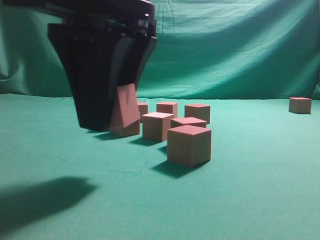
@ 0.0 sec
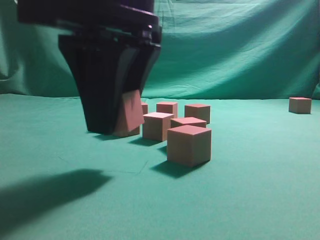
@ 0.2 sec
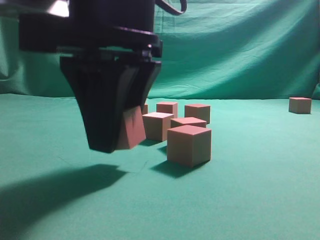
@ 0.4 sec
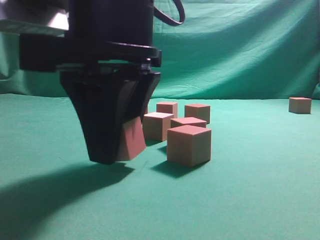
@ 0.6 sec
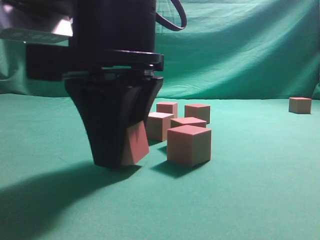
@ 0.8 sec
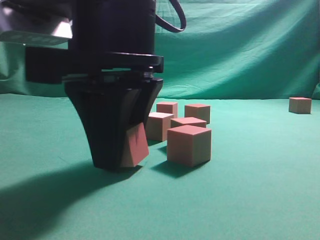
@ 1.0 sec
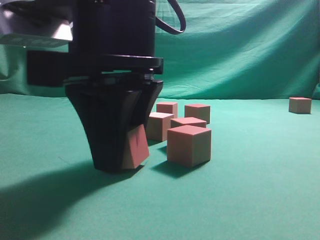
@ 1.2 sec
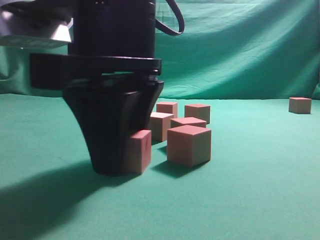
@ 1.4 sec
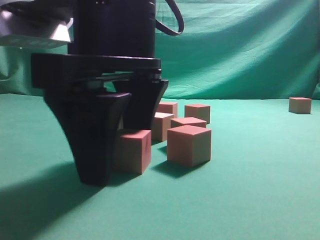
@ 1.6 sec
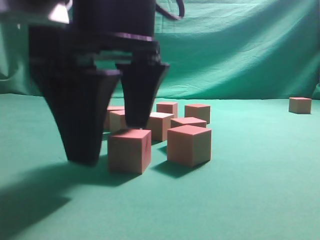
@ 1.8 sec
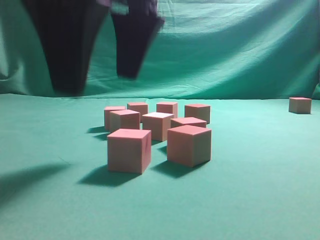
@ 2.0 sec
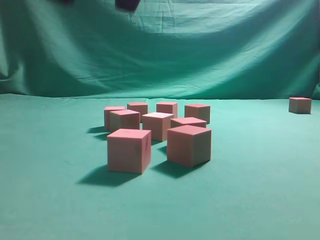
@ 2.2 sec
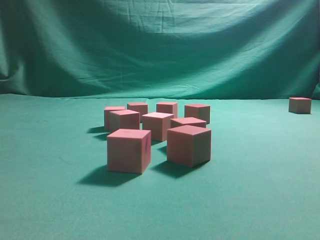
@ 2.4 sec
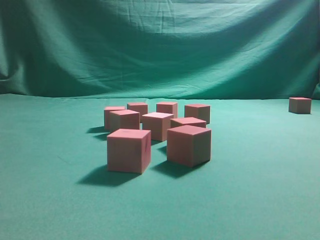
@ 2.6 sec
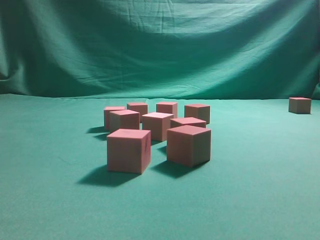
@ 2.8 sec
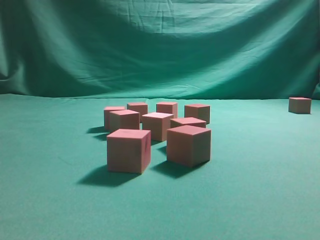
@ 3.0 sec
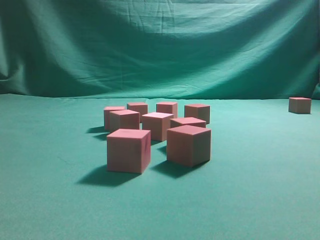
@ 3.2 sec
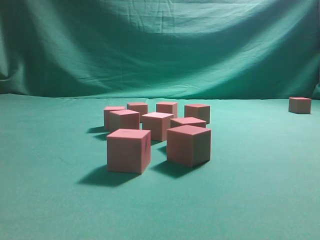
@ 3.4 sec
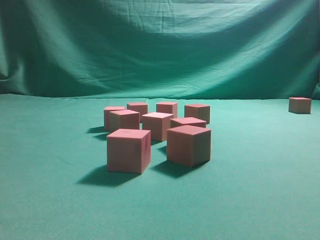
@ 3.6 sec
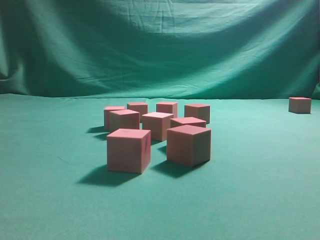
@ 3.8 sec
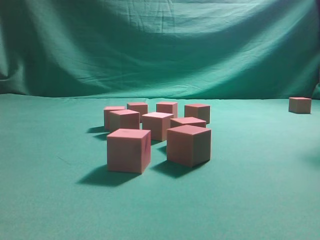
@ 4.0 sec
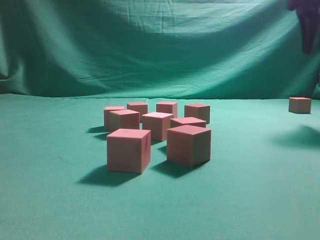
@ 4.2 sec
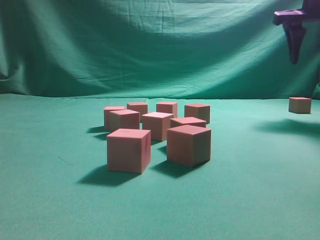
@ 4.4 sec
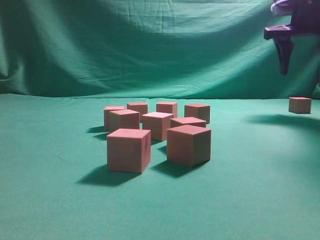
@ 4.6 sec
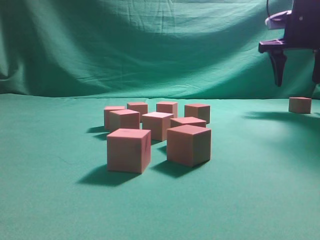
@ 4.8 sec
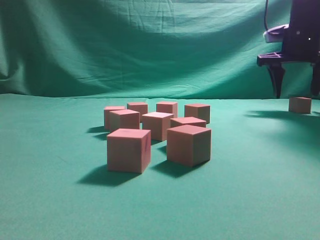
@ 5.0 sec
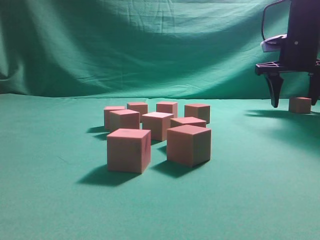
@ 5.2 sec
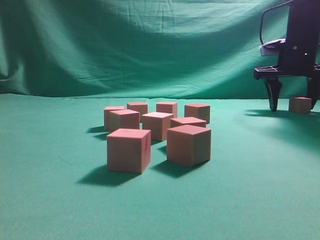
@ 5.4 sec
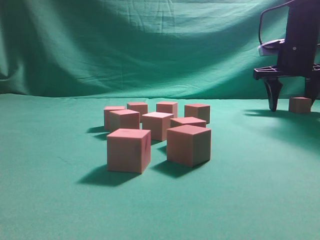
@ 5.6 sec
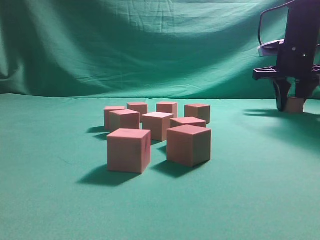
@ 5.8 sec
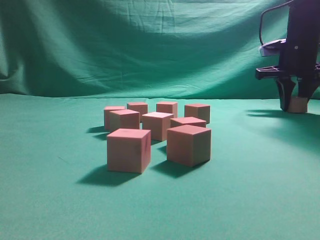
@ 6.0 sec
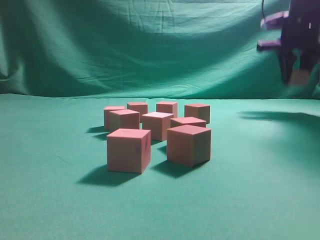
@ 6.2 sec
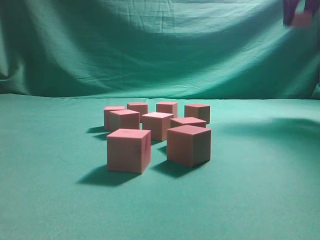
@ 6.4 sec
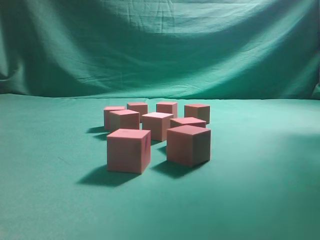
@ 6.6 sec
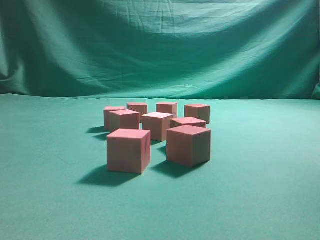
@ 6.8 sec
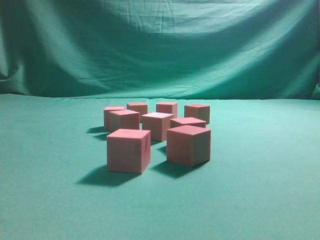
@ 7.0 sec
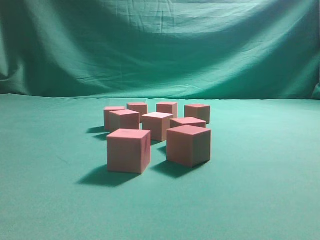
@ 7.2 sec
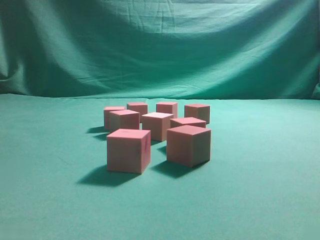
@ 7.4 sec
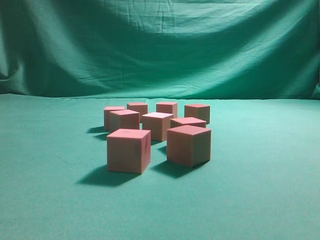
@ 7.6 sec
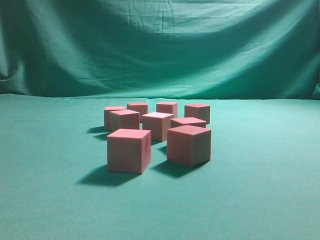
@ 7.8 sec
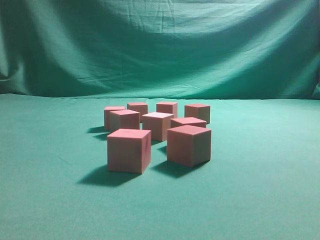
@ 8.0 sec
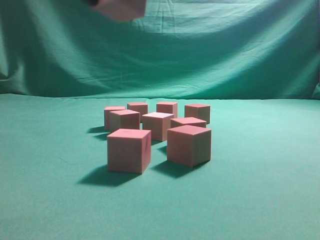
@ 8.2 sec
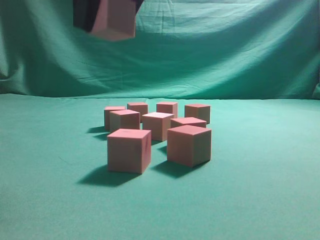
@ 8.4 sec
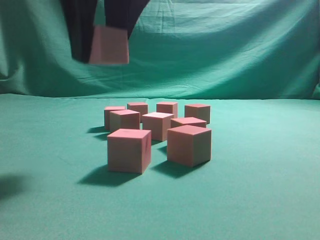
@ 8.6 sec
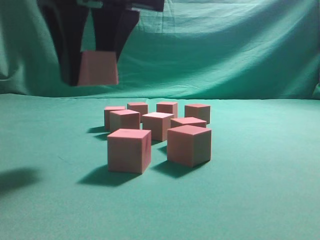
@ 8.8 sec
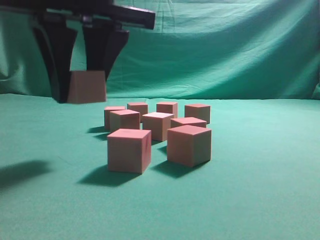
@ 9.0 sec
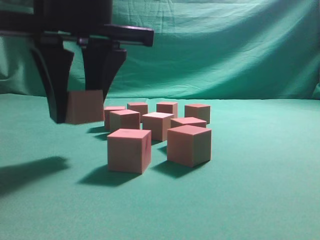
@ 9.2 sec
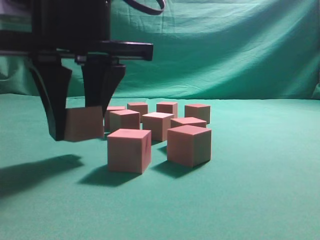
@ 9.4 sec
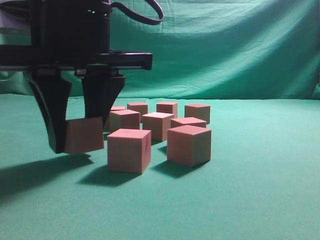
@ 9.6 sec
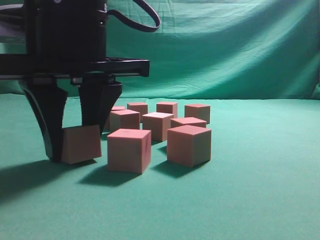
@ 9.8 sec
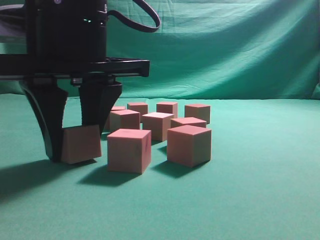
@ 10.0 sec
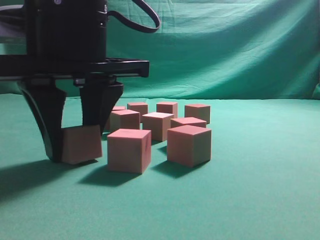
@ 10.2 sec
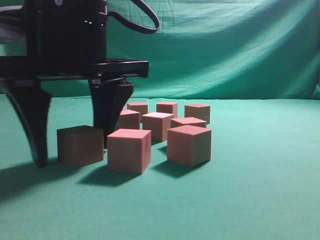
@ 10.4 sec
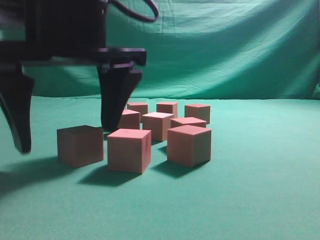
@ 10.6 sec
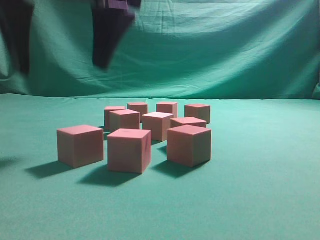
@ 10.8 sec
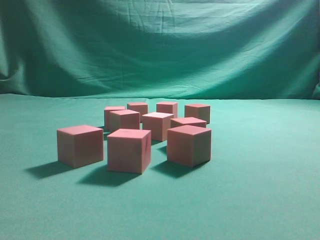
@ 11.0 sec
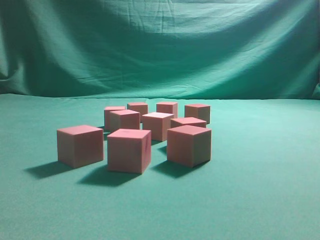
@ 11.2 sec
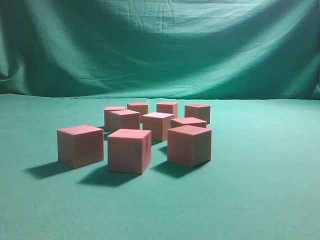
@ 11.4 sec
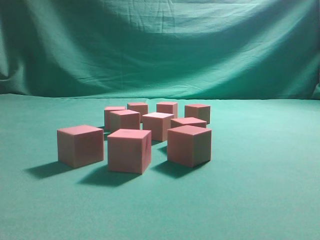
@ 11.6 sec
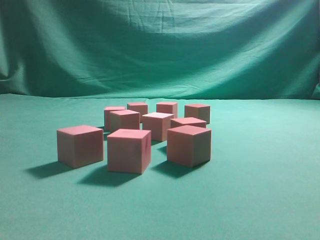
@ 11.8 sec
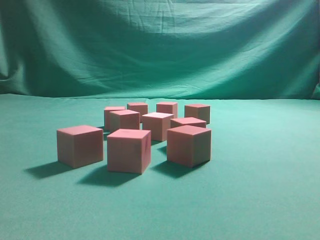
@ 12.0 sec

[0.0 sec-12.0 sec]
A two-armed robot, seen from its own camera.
Task of the whole recording: pick up the multiple cubes in two columns one by one and place them in another position on the table.
Step, 1.8 sec to 6.0 sec: Pick up the block on the table.
Step, 6.2 sec to 10.4 sec: Place the block at the correct position to assemble the letter S.
0.0 sec to 1.6 sec: The right gripper opens.
1.6 sec to 3.0 sec: The right gripper goes about 30 cm upward and to the right.
3.0 sec to 4.4 sec: The right gripper shifts about 25 cm forward, downward and to the right.
4.4 sec to 6.0 sec: The right gripper heads downward and forward, covering about 10 cm, and closes its fingers.
6.0 sec to 7.6 sec: The right gripper moves backward, upward and to the left, about 35 cm.
7.6 sec to 9.0 sec: The right gripper goes some 30 cm to the left and downward.
9.0 sec to 10.4 sec: The right gripper shifts some 5 cm downward.
10.4 sec to 12.0 sec: The right gripper heads upward and to the right, covering roughly 40 cm, and closes.
